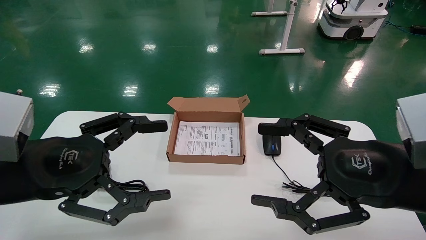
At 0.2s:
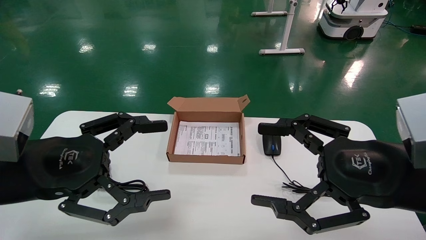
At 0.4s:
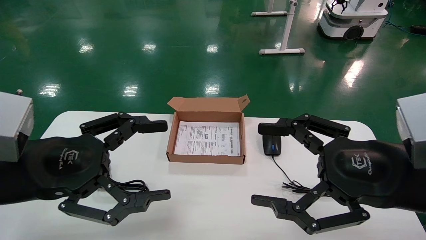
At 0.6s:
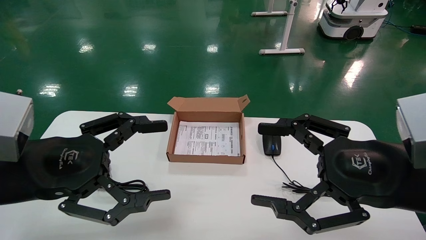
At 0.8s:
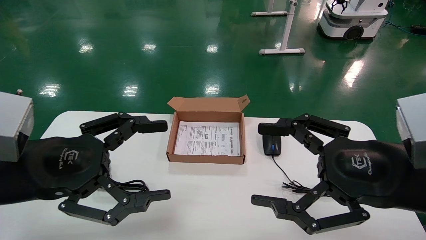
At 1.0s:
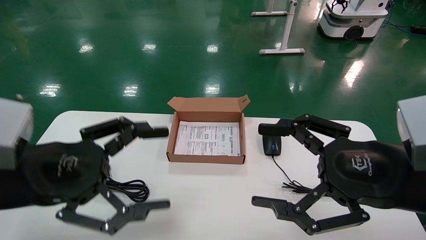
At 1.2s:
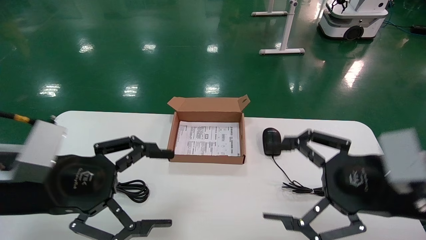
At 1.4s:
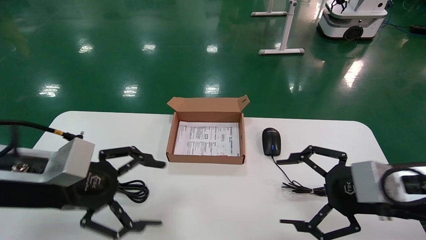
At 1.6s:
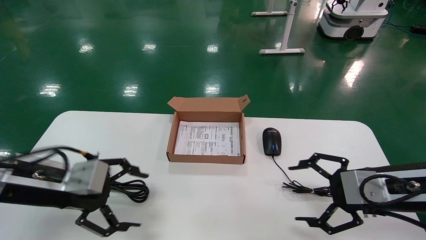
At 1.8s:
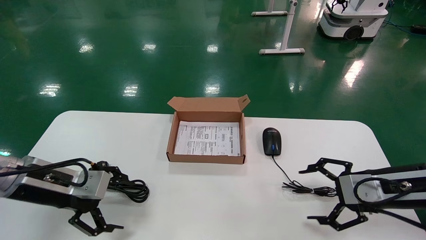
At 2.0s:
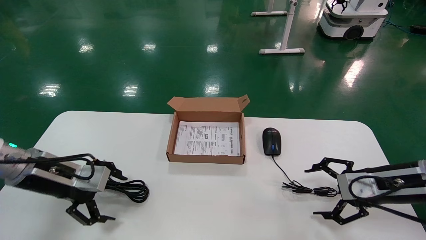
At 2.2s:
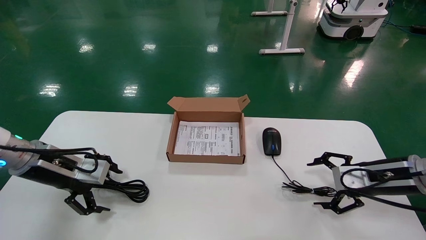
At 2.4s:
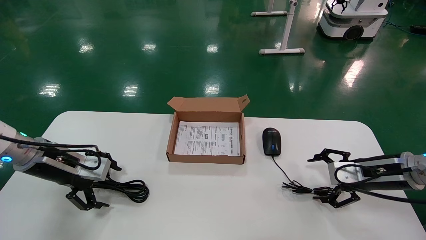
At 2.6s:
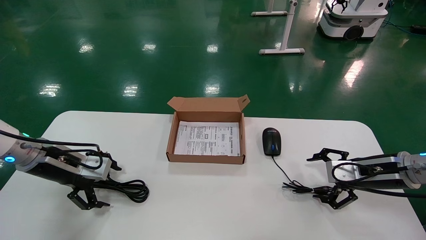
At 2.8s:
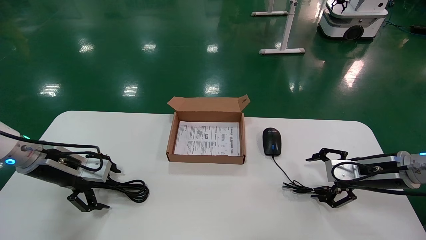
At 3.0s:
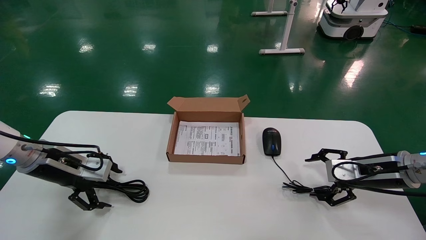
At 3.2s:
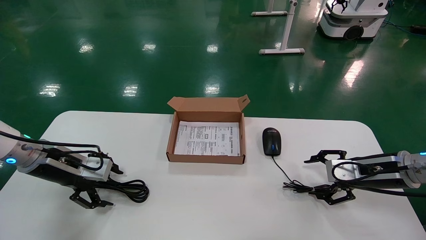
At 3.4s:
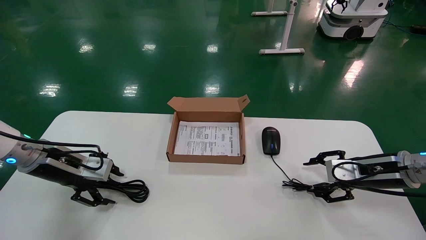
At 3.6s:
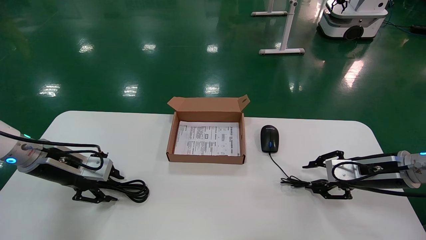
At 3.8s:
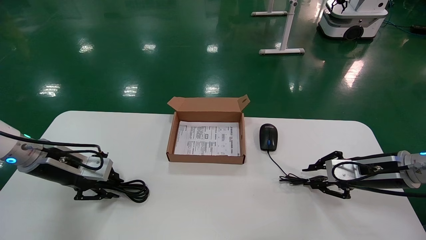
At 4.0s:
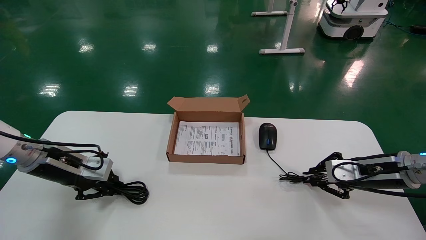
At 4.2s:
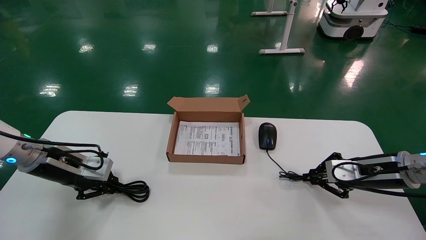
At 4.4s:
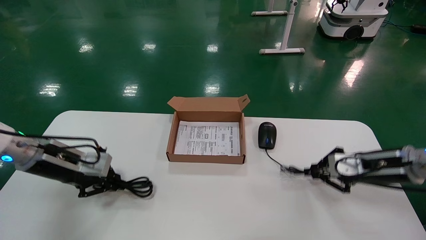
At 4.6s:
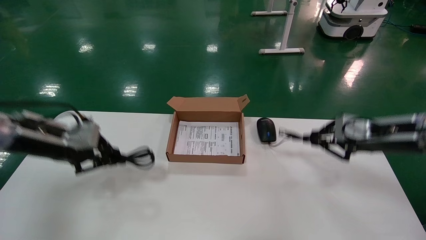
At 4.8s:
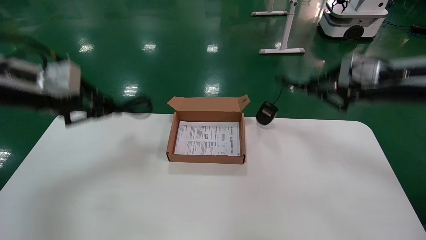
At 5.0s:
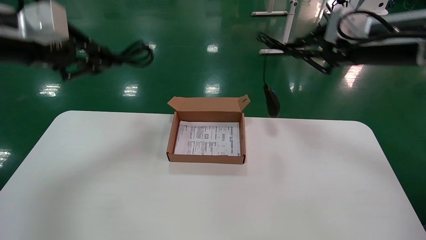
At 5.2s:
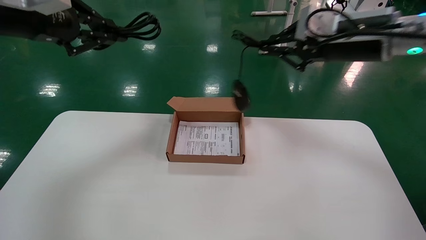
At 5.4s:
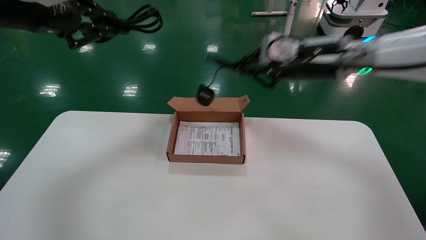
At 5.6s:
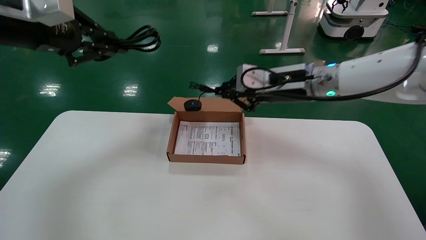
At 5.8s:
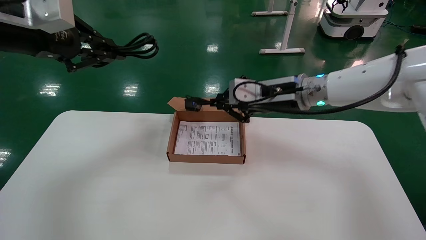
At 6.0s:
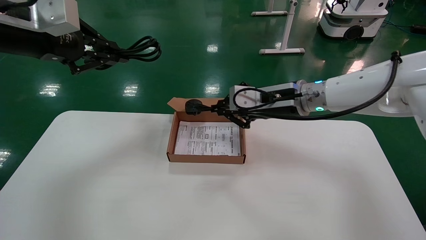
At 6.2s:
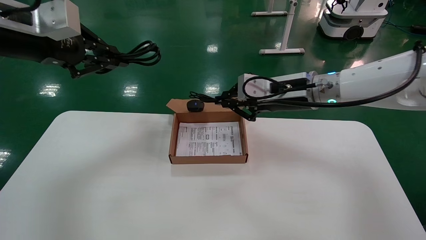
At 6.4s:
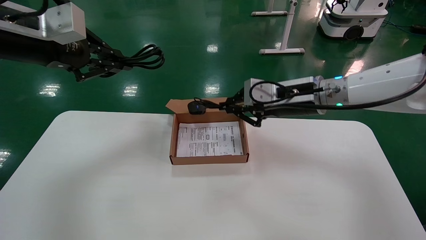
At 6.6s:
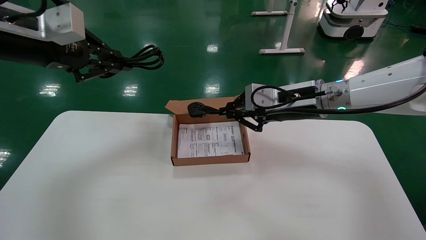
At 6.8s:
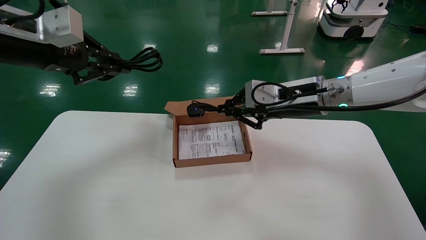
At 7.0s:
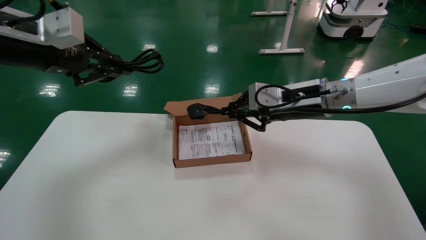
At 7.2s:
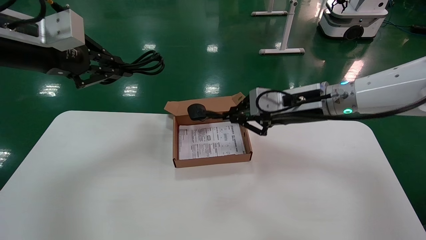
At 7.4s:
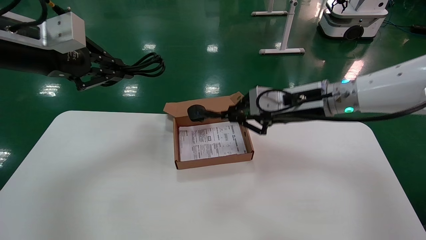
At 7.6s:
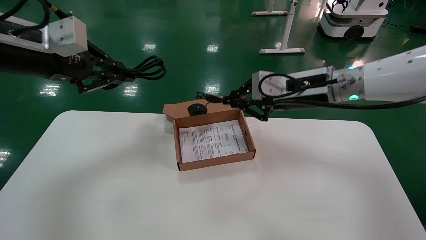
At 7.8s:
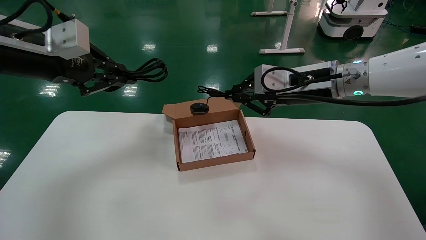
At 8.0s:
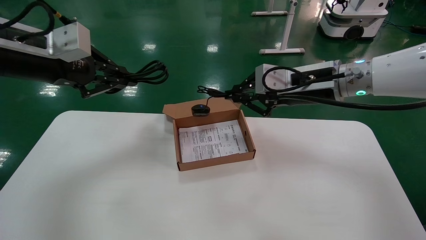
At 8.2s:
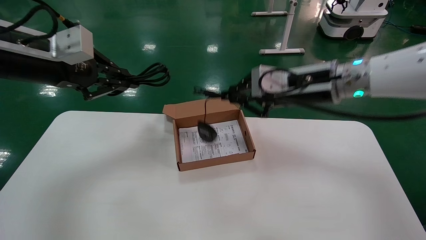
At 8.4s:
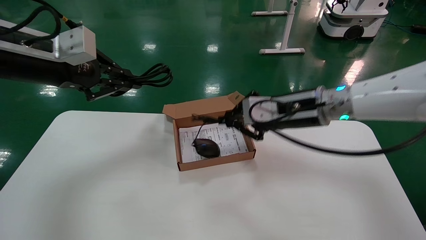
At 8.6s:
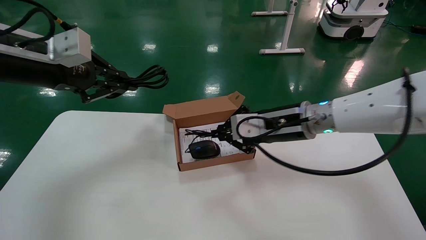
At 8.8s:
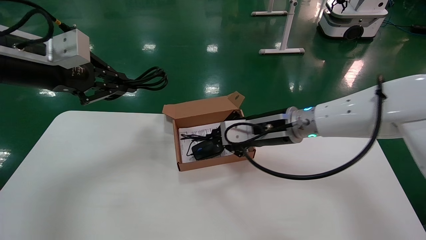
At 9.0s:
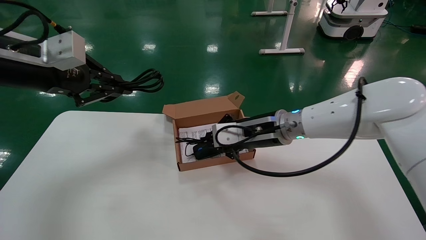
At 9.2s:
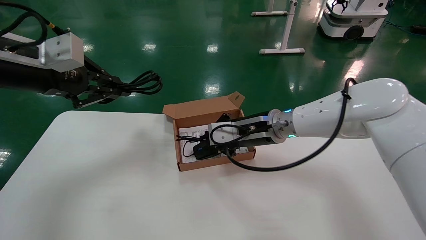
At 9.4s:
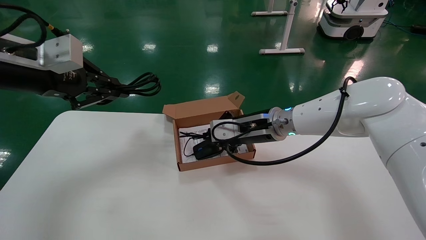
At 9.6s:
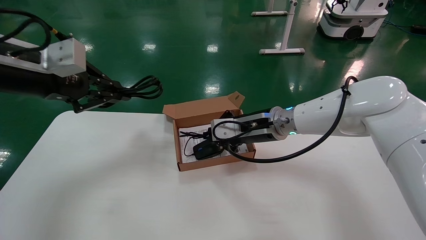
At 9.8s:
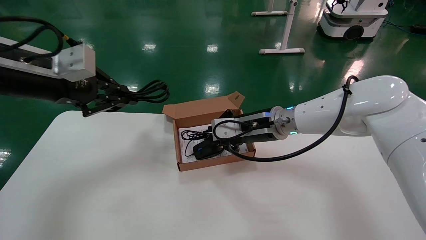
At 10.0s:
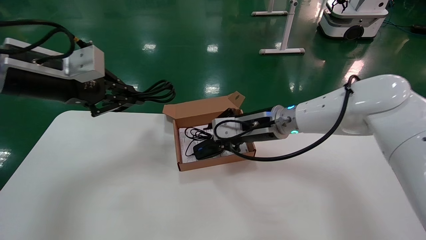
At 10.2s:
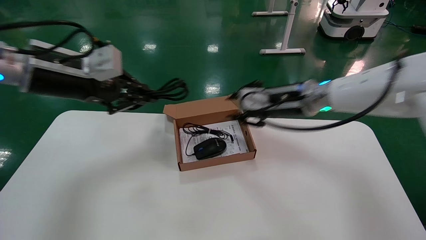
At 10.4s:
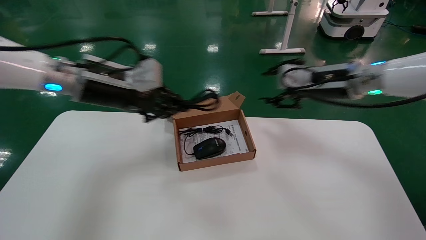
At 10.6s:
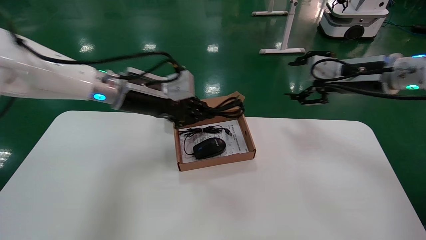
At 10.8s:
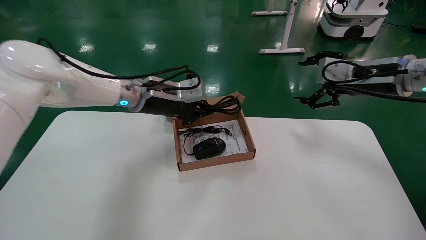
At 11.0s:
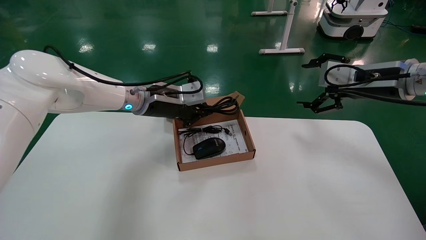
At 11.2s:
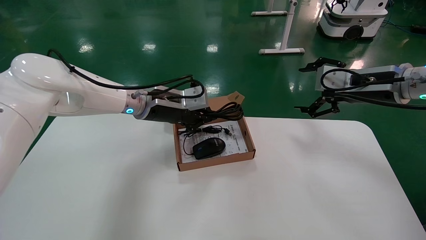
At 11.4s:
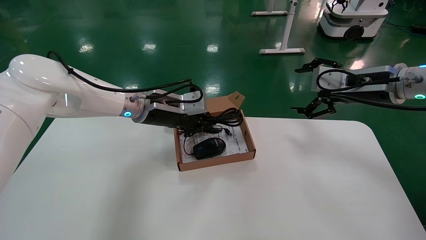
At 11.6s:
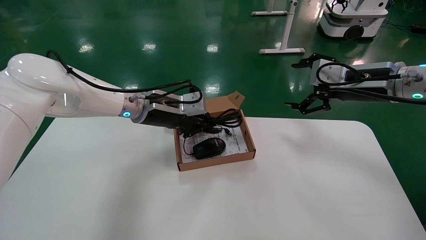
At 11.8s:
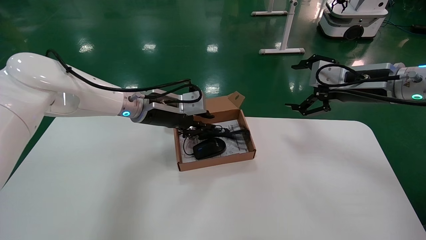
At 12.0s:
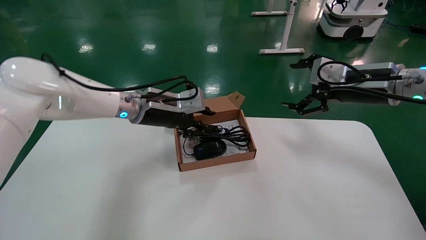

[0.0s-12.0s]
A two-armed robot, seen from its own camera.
Step, 1.4s to 4.4s: Grab and lift both the mouse and power cord from the accessory packaging area at the same time.
Step, 4.6s to 11.8s: Place the mouse and power cord into the box.
0.0s to 1.6s: The right gripper moves forward, downward and to the right, approximately 10 cm, while the left gripper travels forward and downward by some 10 cm.
1.6s to 3.0s: The right gripper shifts roughly 10 cm forward; the left gripper travels forward and to the left by approximately 10 cm.
3.0s to 4.4s: The right gripper closes, while the left gripper closes its fingers.
4.4s to 6.0s: The left gripper goes roughly 20 cm upward; the right gripper goes about 25 cm to the left and upward.
6.0s to 7.6s: The grippers make only small movements.
7.6s to 9.0s: The right gripper is displaced downward and to the left by about 10 cm.
9.0s to 10.4s: The right gripper travels to the right and upward by about 15 cm, and opens up, while the left gripper heads to the right, forward and downward, covering about 15 cm.
10.4s to 12.0s: The right gripper shifts approximately 5 cm to the right, and opens up; the left gripper is displaced downward, to the right and forward by some 10 cm.

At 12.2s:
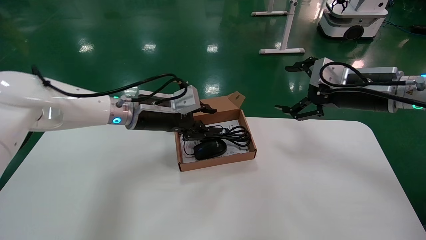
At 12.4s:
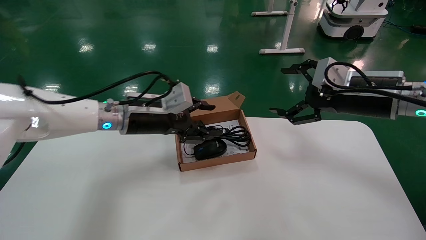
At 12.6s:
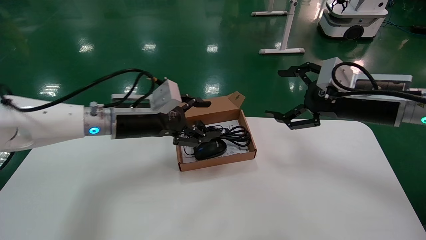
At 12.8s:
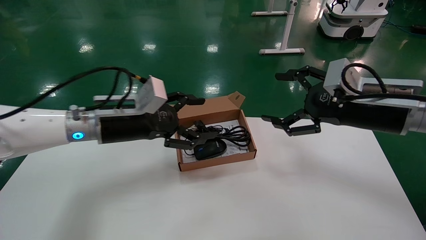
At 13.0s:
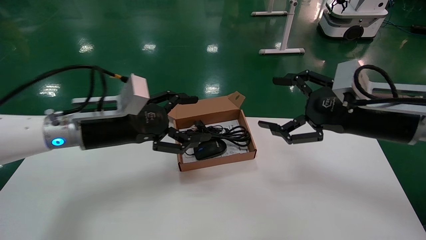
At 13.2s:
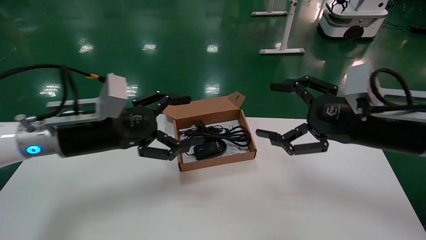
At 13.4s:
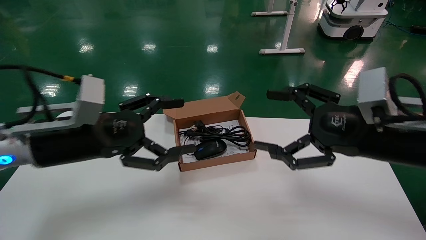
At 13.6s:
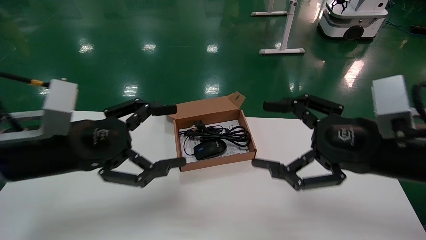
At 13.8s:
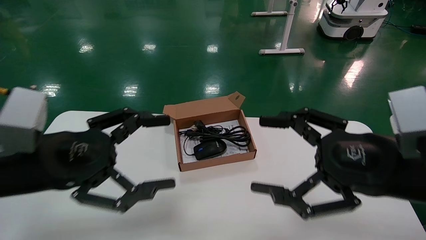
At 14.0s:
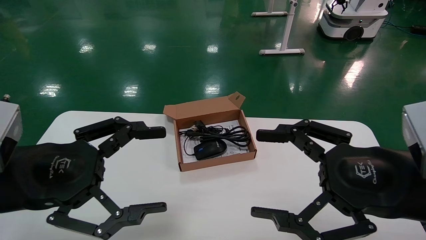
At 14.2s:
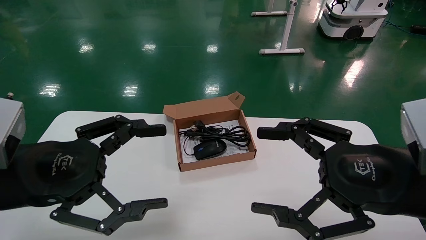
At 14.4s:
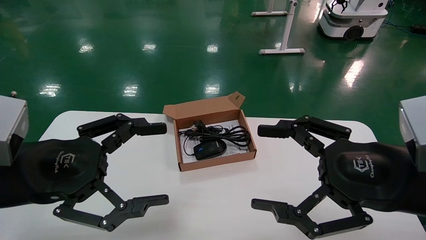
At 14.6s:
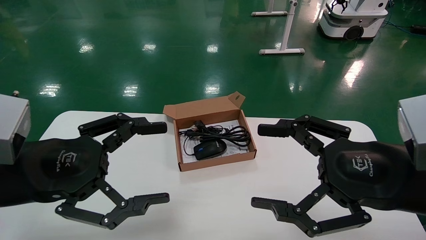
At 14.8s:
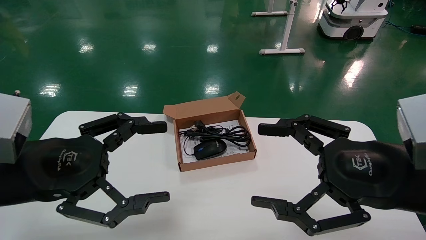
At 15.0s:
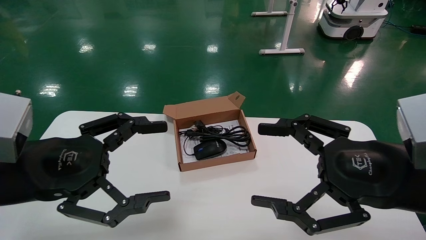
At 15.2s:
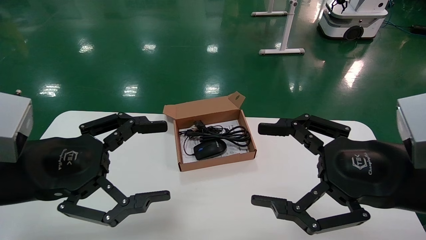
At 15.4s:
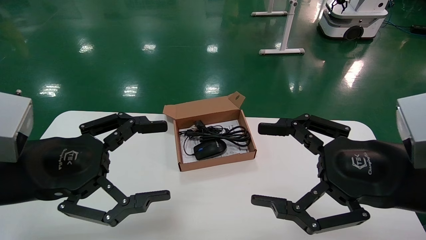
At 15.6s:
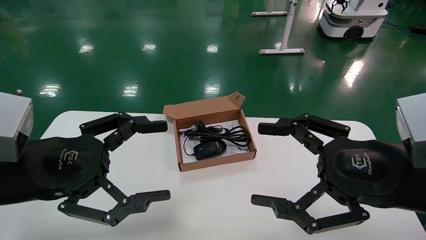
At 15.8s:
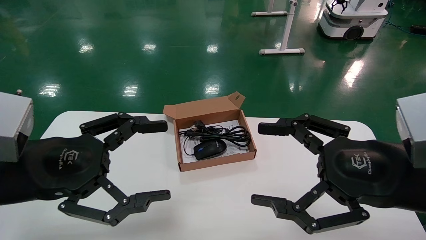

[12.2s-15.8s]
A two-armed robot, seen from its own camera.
12.2s to 14.0s: The right gripper is displaced backward by approximately 20 cm; the left gripper heads backward and to the left, covering approximately 25 cm, and opens its fingers.
14.0s to 15.8s: Both grippers stay about where they are.
